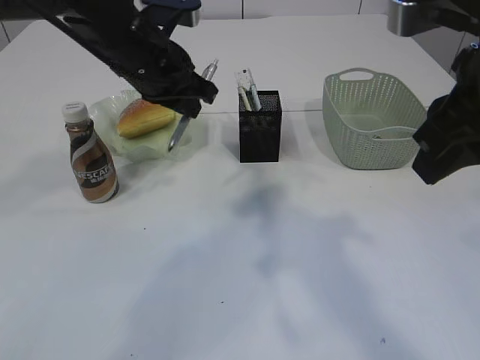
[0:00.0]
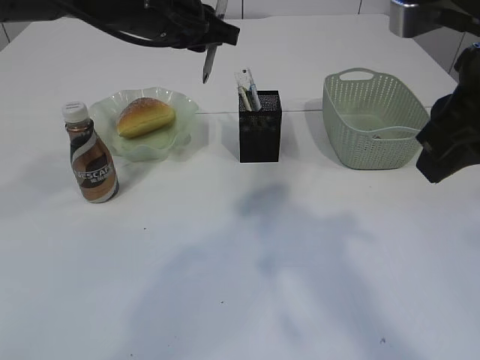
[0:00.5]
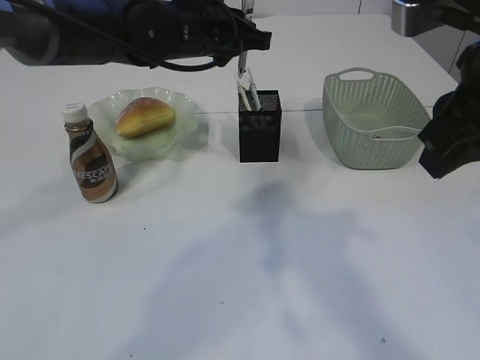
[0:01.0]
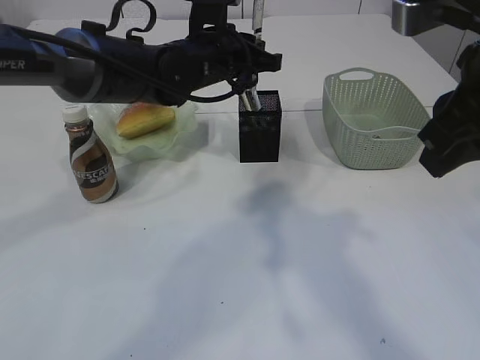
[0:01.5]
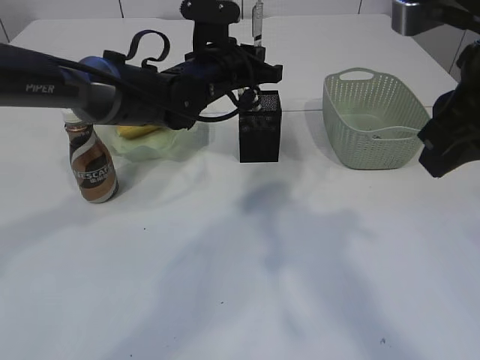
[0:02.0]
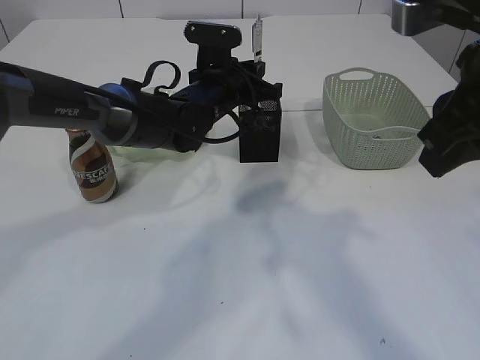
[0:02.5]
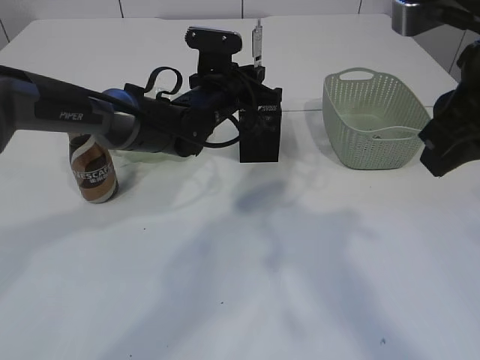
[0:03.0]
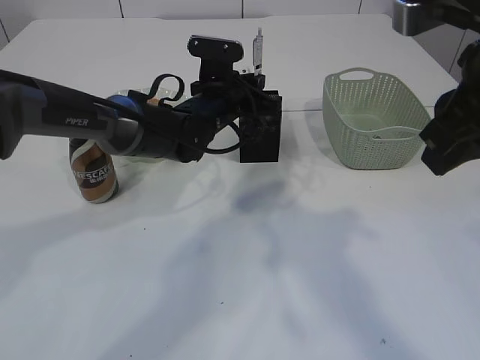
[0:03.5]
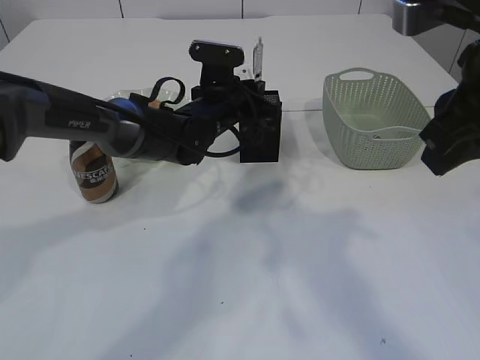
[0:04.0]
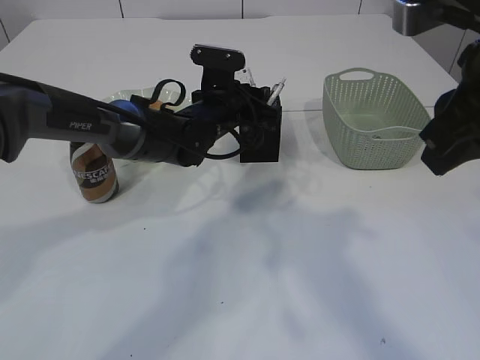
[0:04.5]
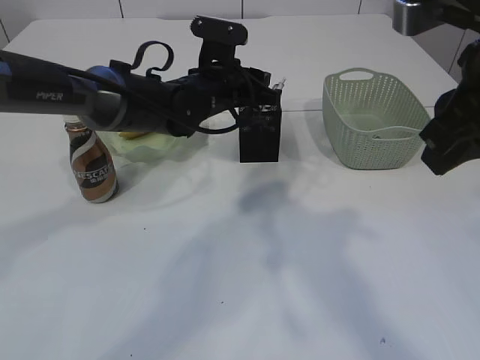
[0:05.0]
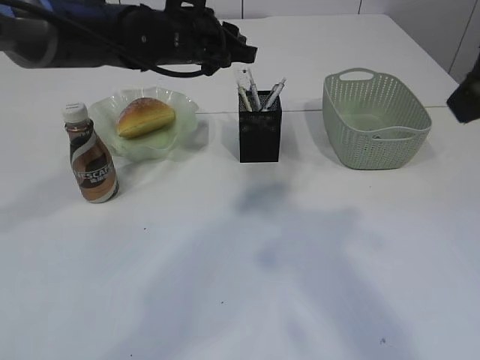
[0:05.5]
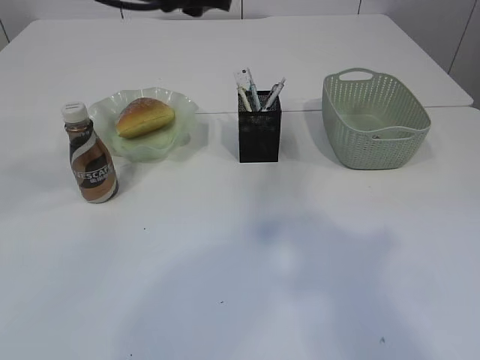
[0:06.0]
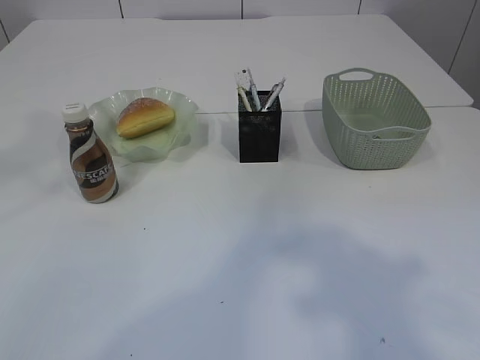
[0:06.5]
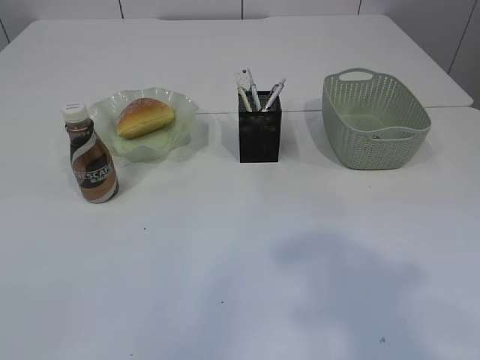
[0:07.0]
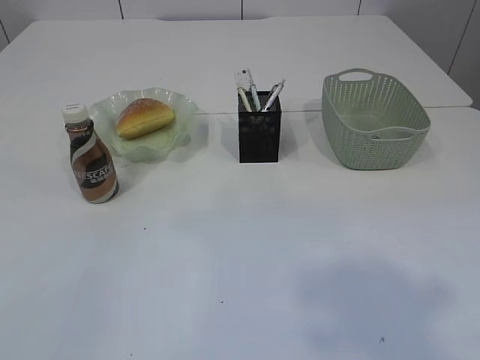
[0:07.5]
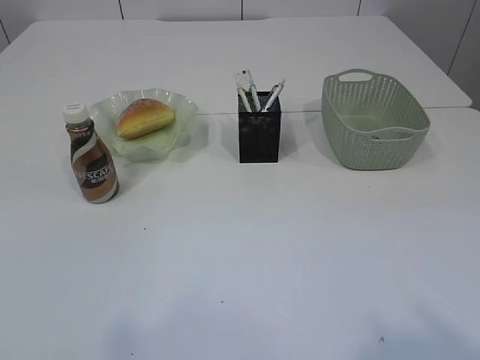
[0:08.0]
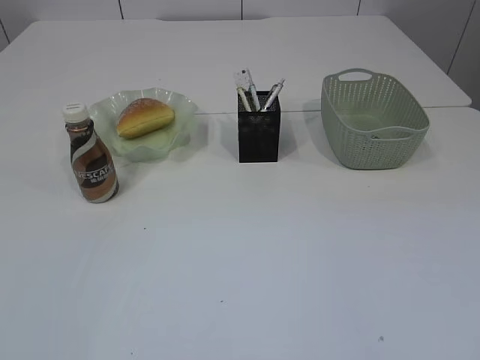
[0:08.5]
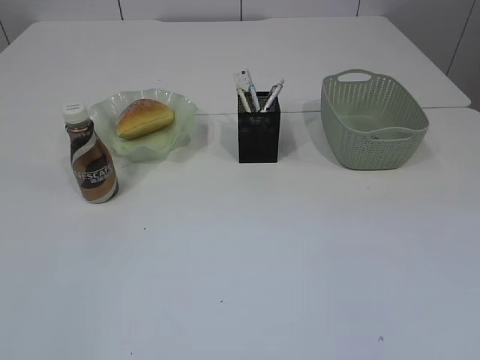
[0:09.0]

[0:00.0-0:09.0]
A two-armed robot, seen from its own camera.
Step, 0:00.0 to 0:05.5: Place the pen into the pen holder.
0:00.0 to 0:02.0: The left gripper shifts about 10 cm to the right, downward and forward.
0:02.0 to 0:04.5: The left gripper travels downward by approximately 5 cm, and opens.
0:04.5 to 0:07.0: The left gripper moves upward, backward and to the left, about 50 cm. The right gripper is displaced backward, upward and to the right by approximately 20 cm, and opens up.
0:07.0 to 0:09.0: The right gripper is displaced downward and backward by some 20 cm.

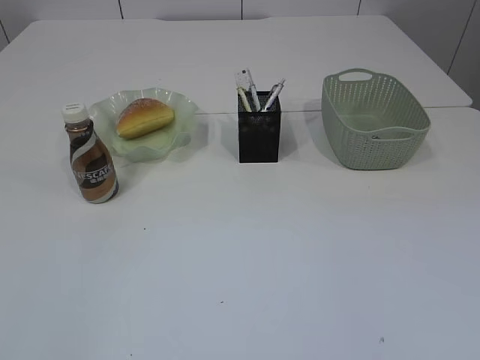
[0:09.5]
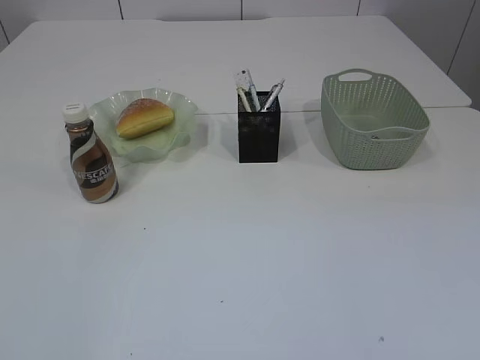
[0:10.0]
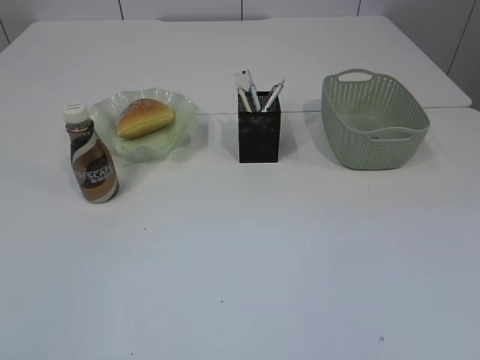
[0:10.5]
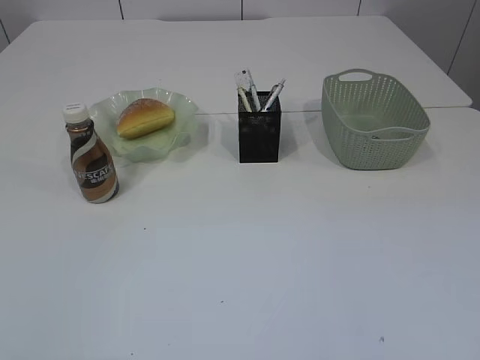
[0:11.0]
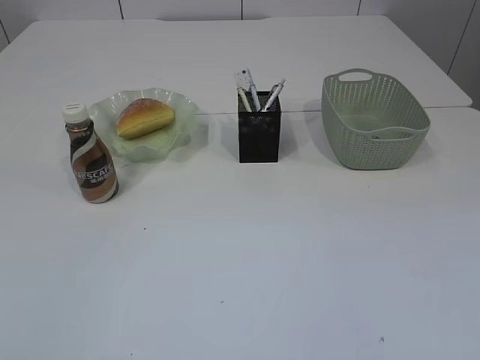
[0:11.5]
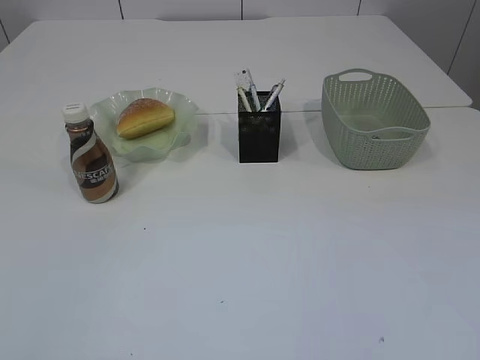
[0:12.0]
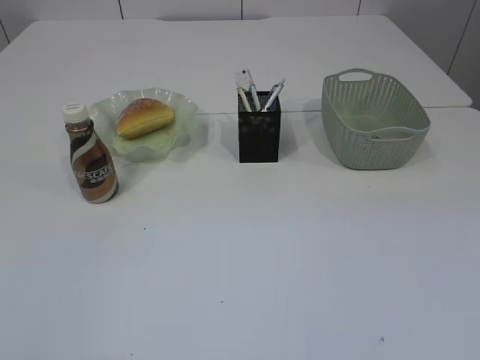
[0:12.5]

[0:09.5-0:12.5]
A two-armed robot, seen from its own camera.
0:11.0 to 0:12.5: Both grippers stay about where they are.

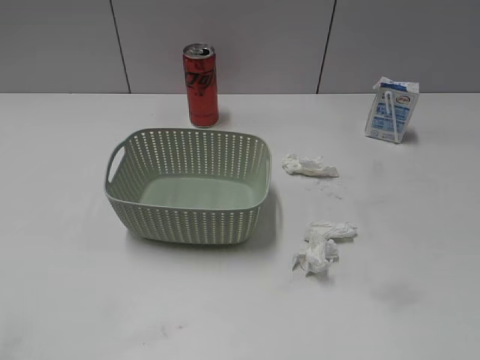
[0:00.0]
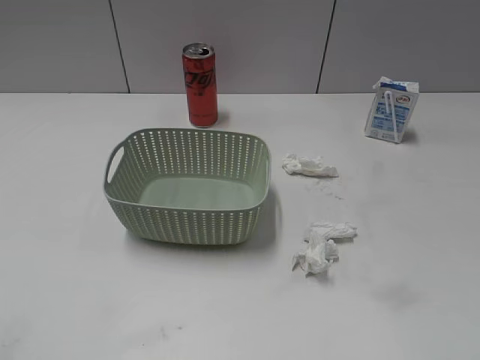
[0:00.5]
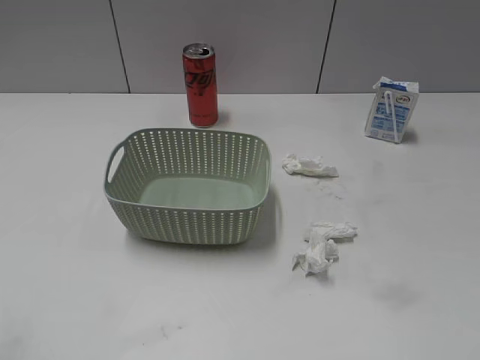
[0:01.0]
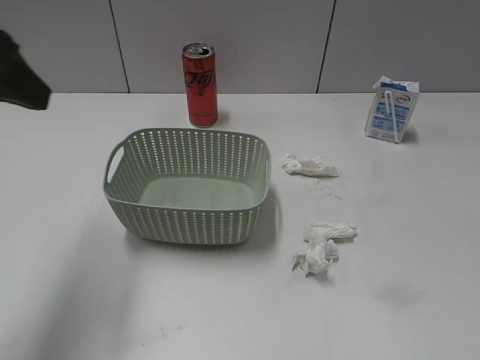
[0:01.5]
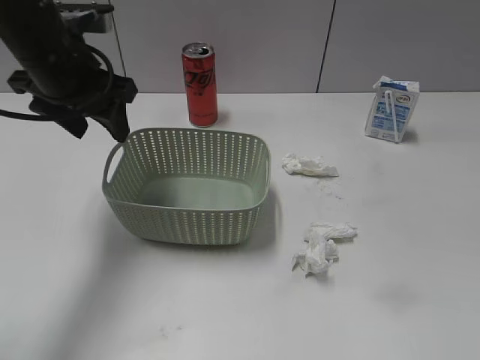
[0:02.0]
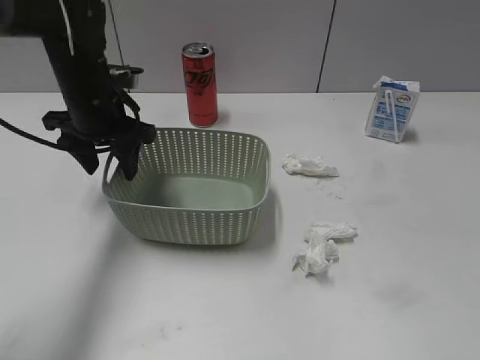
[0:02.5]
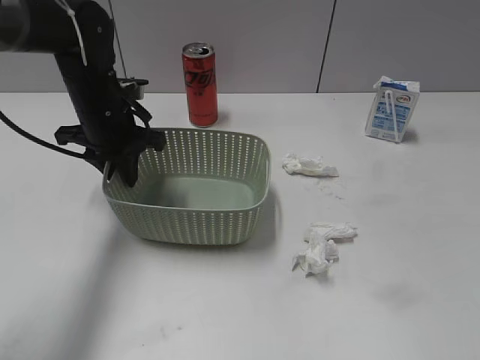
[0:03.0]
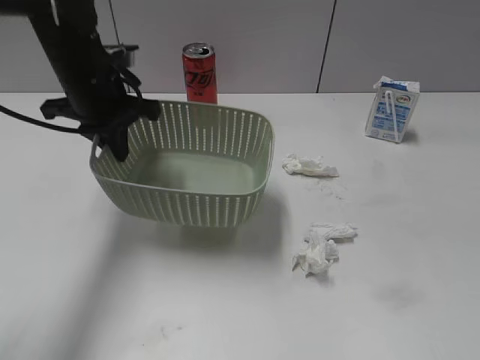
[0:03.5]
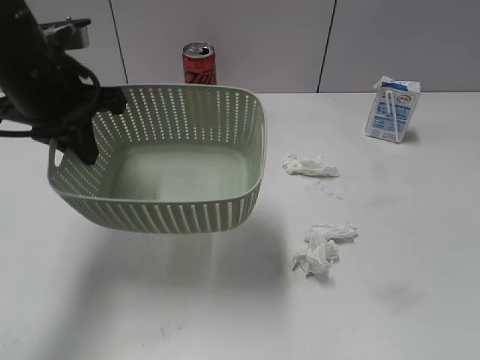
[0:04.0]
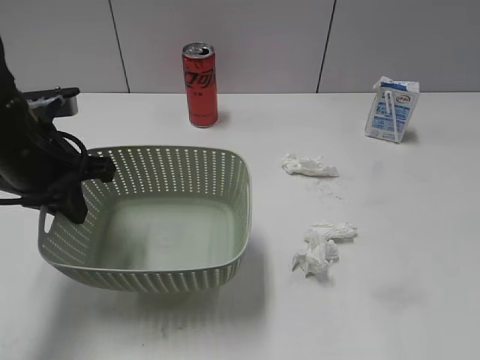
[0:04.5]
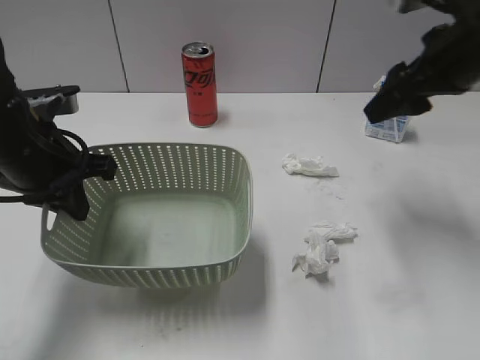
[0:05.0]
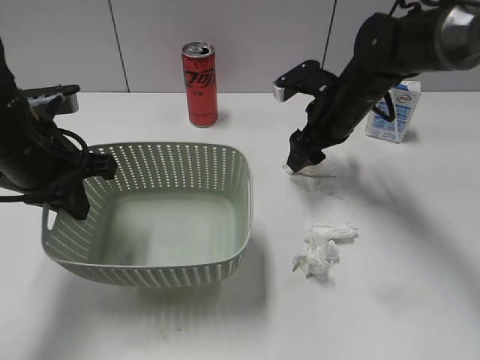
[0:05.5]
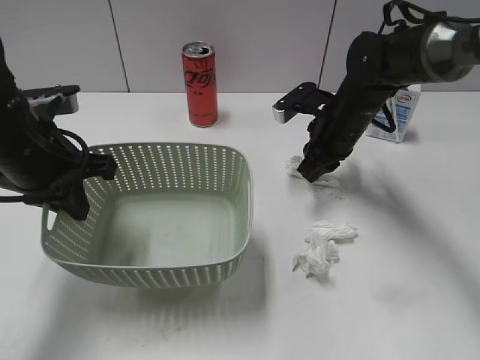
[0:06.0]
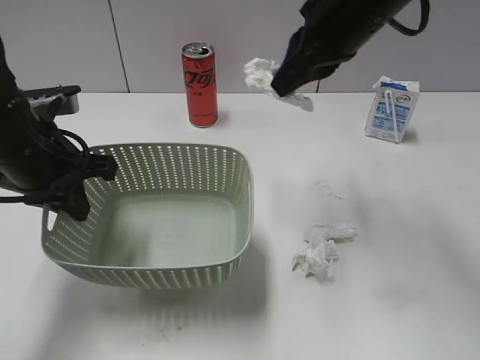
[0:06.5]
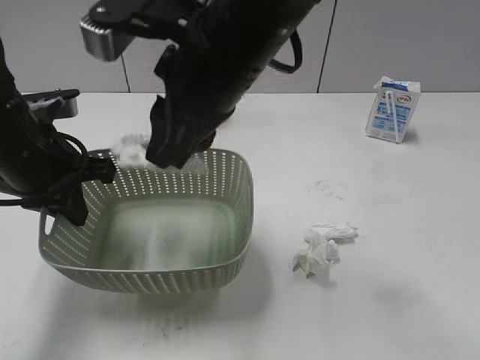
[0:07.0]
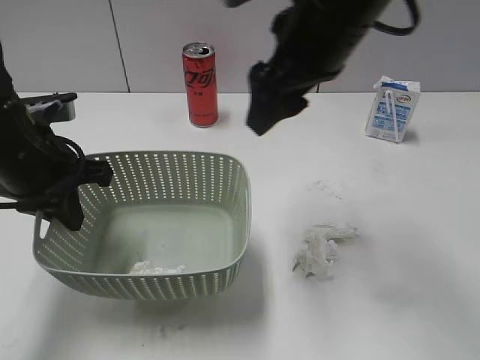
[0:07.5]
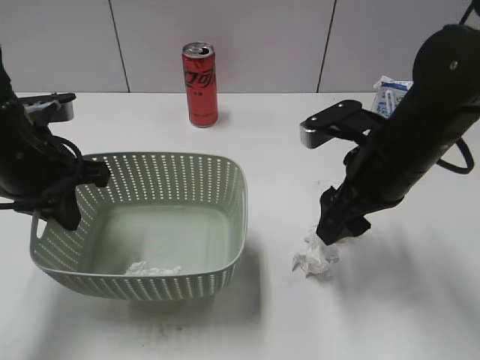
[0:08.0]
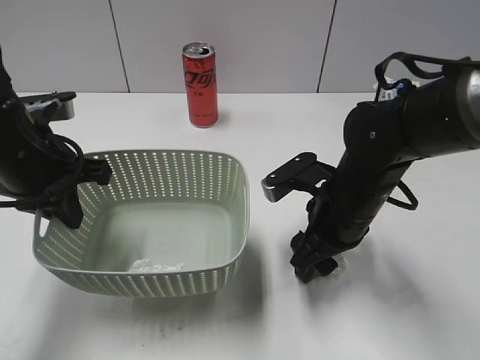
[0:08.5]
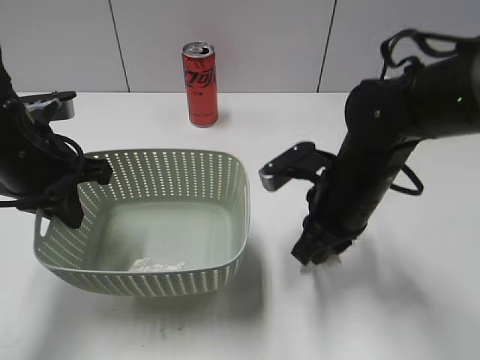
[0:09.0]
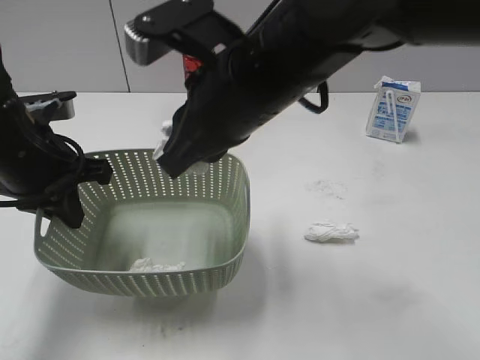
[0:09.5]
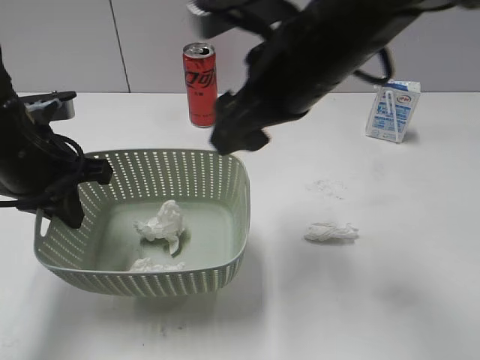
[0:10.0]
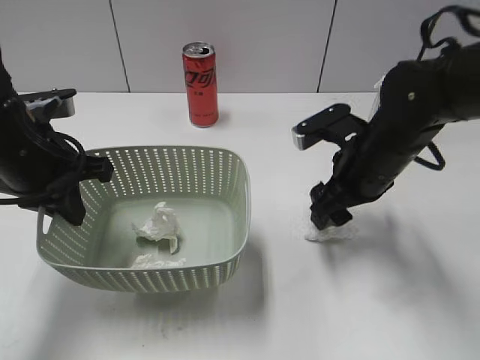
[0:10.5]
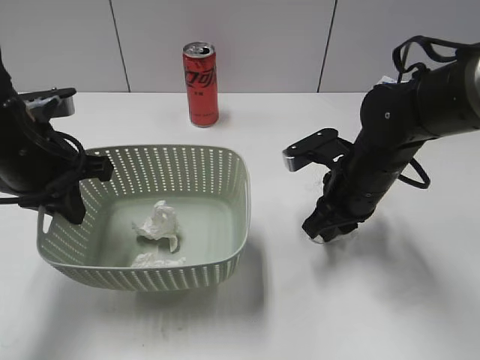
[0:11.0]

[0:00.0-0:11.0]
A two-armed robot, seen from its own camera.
Step, 0:01.5 to 0:03.0: Grasp the basket with left gripper.
Step, 0:04.0 to 0:06.0: Grasp the waste paper with right gripper.
Step, 0:06.5 to 0:07.0: Place the waste paper in the basket with right gripper.
Step, 0:07.5 to 0:08.5: Grasp the waste paper with right gripper.
Step, 0:09.0 to 0:10.0: Place the waste paper in the basket with right gripper.
0:02.0 to 0:03.5: The left gripper moves about 10 cm downward and comes back, and closes up.
0:03.5 to 0:05.5: The right gripper moves forward and to the left, approximately 50 cm. Meanwhile the left gripper shifts approximately 10 cm backward.
0:05.5 to 0:07.5: The right gripper goes approximately 20 cm upward and backward, and closes, then opens again.
0:07.5 to 0:09.0: The right gripper moves downward, about 15 cm, and closes.
0:09.0 to 0:11.0: The right gripper goes upward and returns, approximately 15 cm each way, and opens, then closes again.

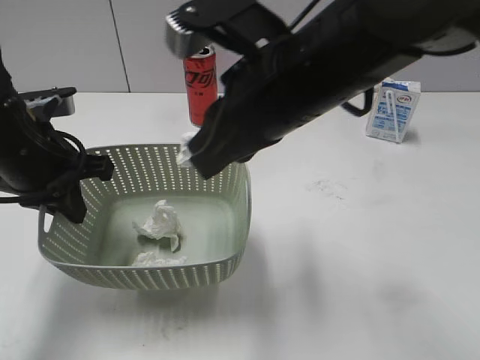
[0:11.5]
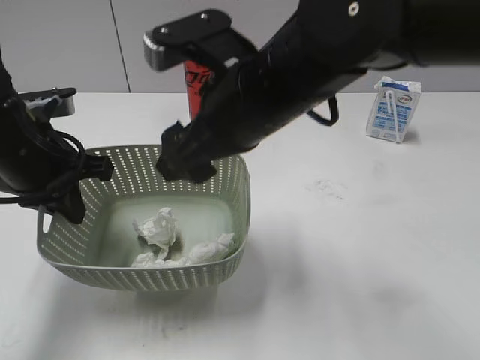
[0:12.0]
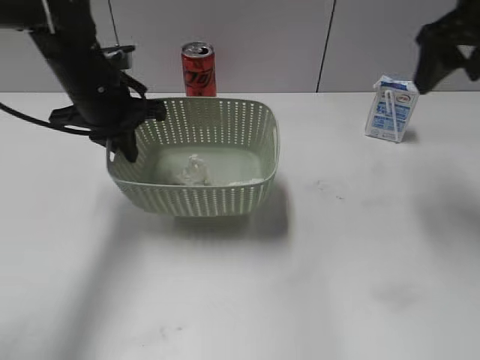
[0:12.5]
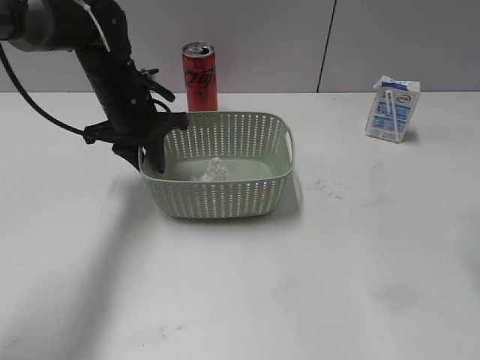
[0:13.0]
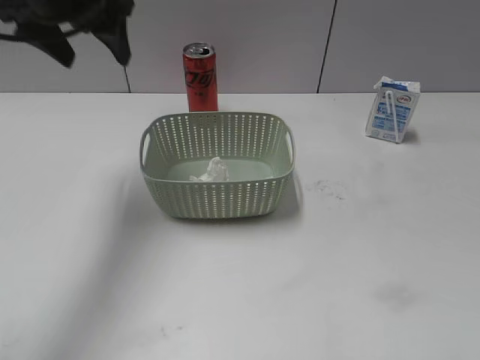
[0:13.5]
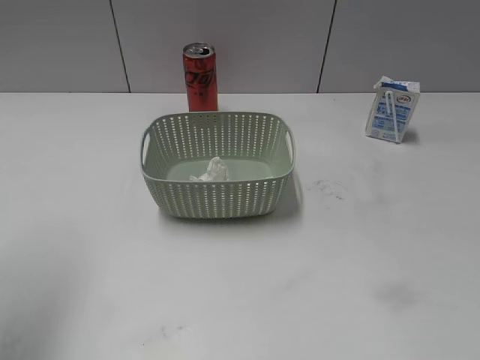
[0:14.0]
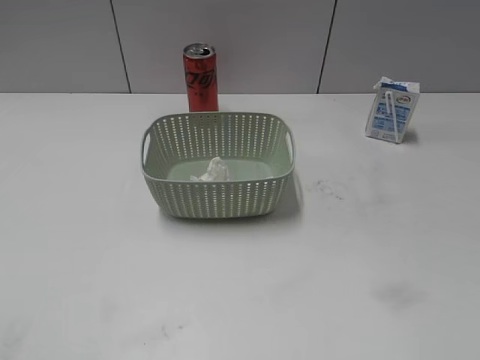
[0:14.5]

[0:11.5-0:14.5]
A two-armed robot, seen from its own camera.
Step, 0:12.0 to 0:13.0: Place the basket on the table with left gripper.
0:11.5 to 0:13.0: The right gripper moves to the right, roughly 25 cm, and opens its fingers. Meanwhile the left gripper heads forward and to the right, covering approximately 15 cm, and opens.
0:13.0 to 0:14.5: The right gripper moves backward, approximately 25 cm. Meanwhile the left gripper moves backward and to the left, approximately 40 cm, and opens.
